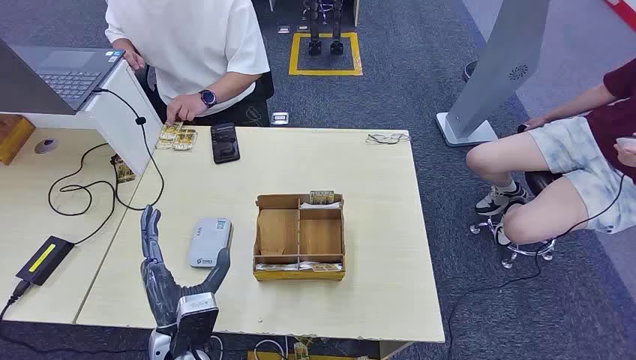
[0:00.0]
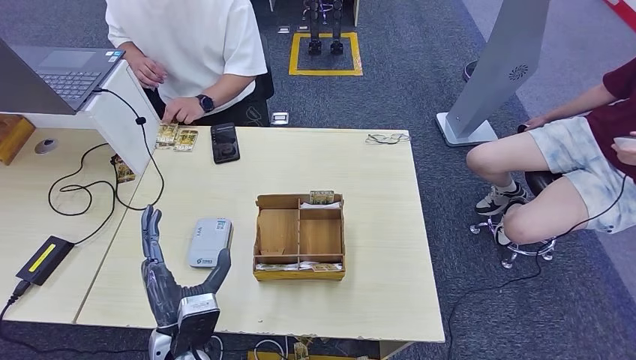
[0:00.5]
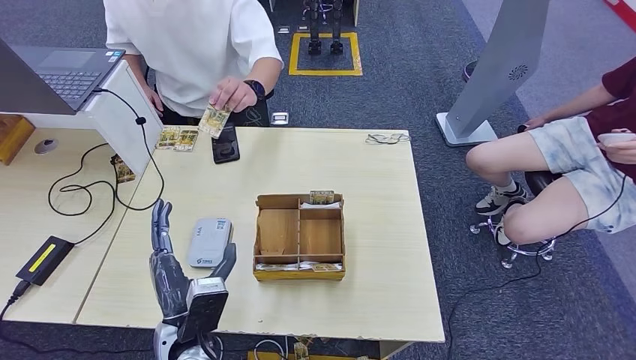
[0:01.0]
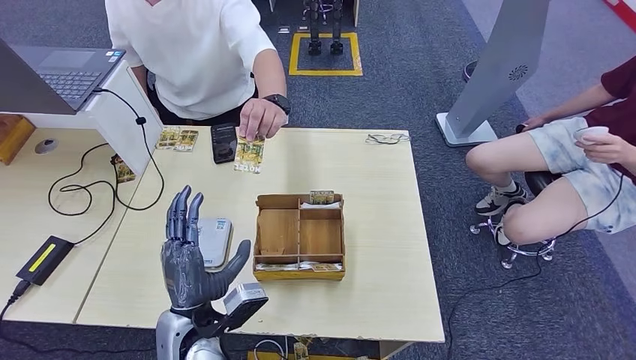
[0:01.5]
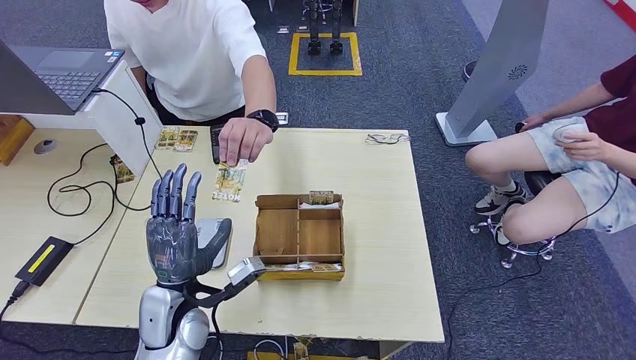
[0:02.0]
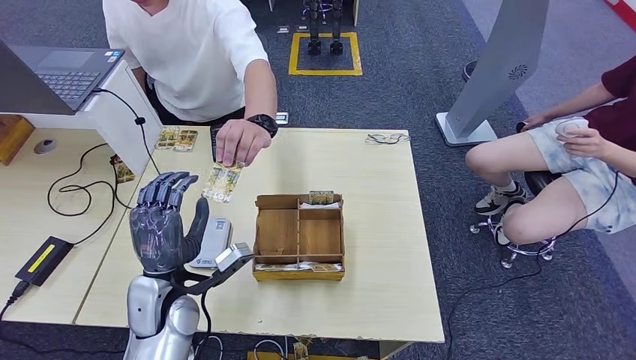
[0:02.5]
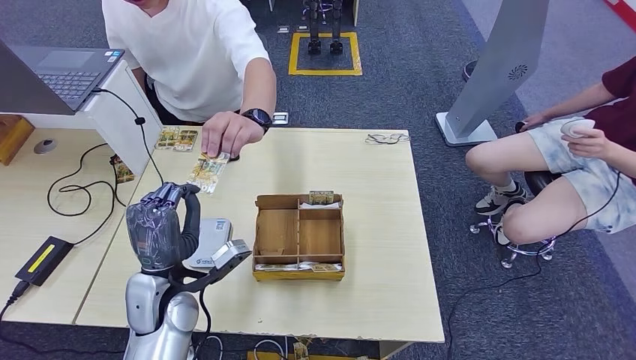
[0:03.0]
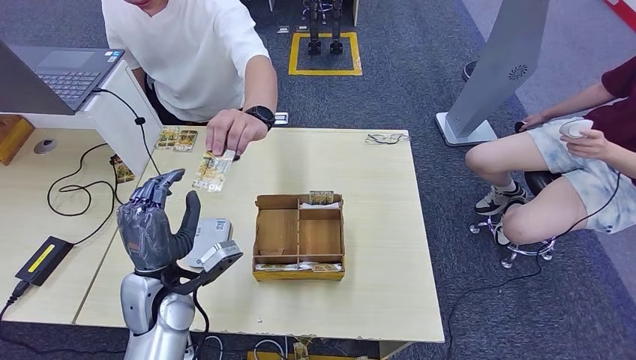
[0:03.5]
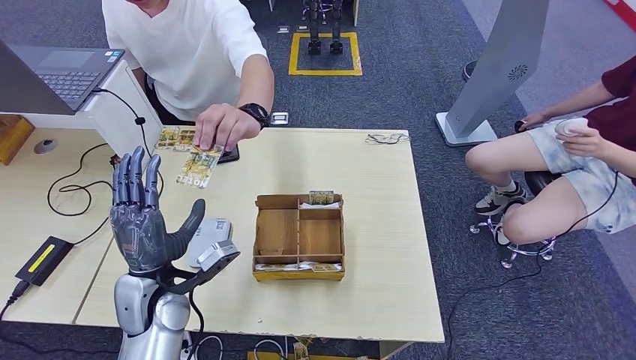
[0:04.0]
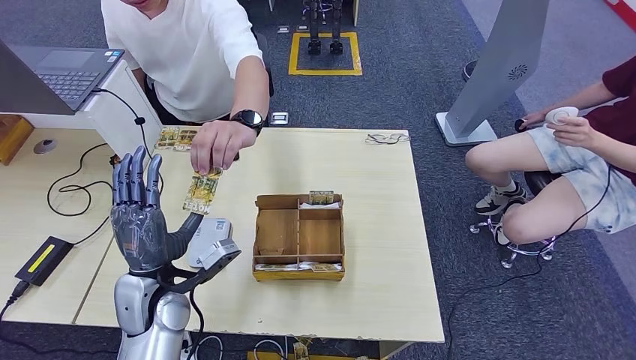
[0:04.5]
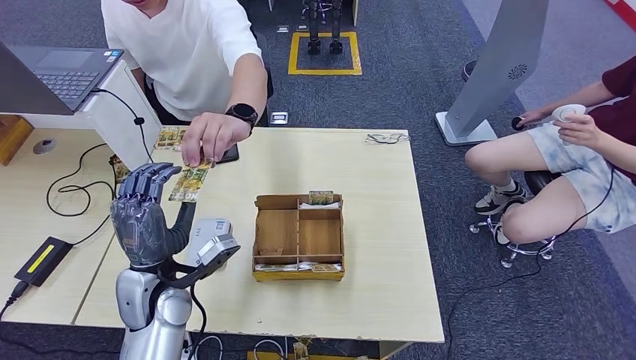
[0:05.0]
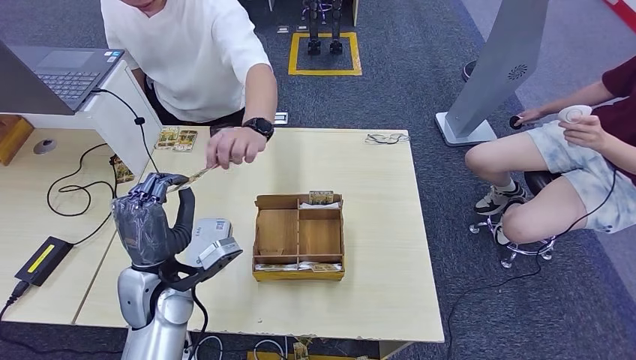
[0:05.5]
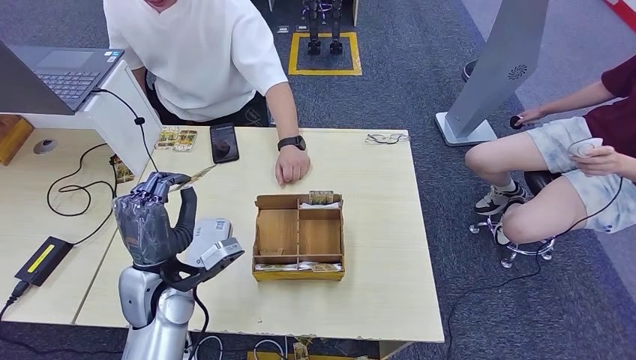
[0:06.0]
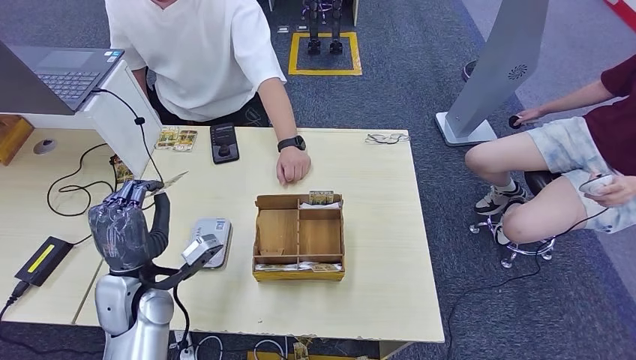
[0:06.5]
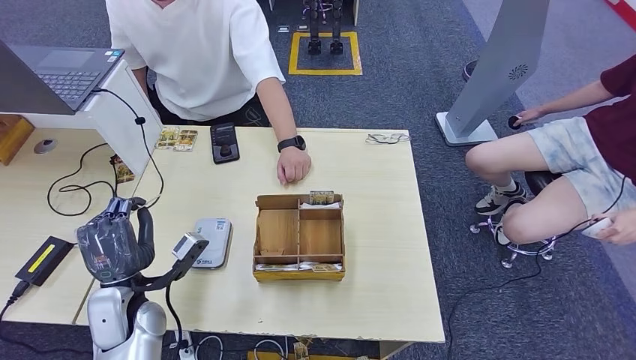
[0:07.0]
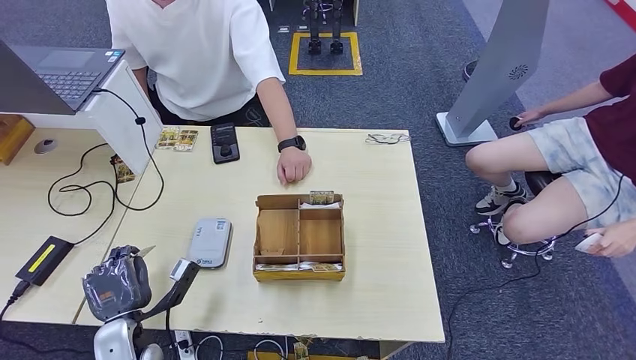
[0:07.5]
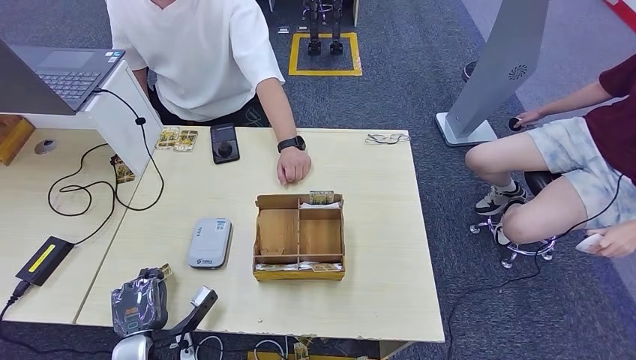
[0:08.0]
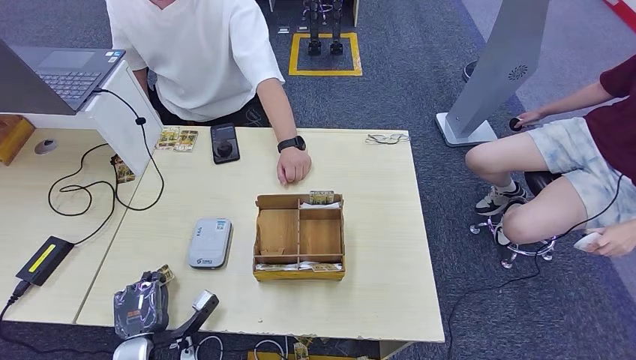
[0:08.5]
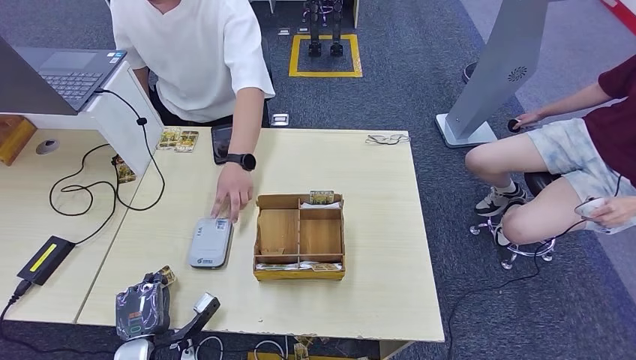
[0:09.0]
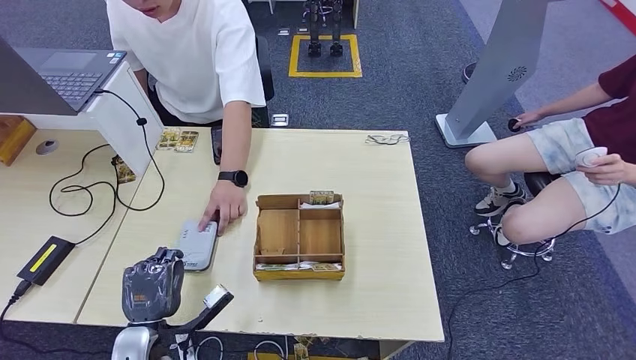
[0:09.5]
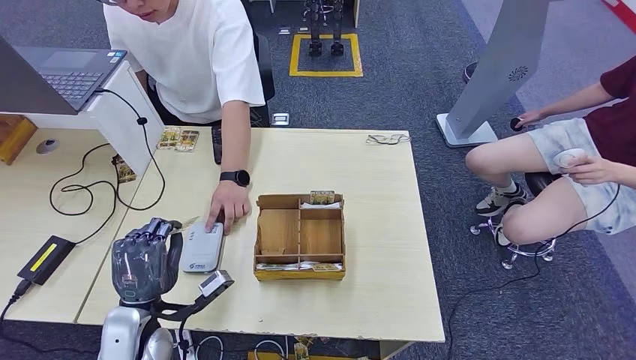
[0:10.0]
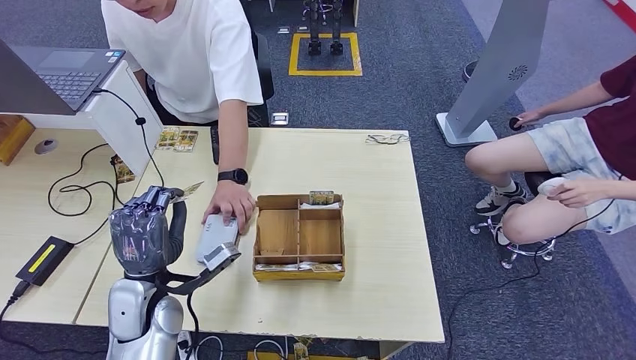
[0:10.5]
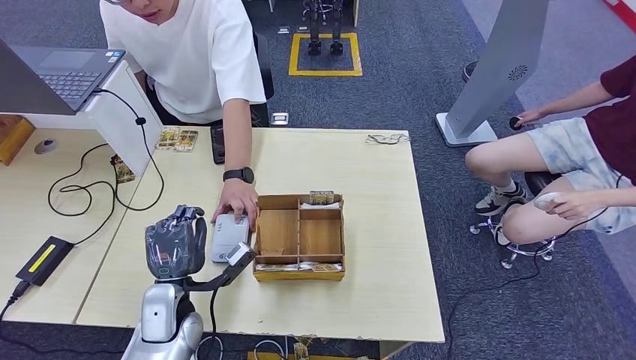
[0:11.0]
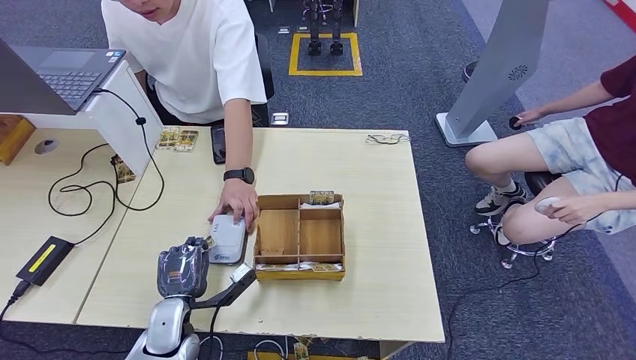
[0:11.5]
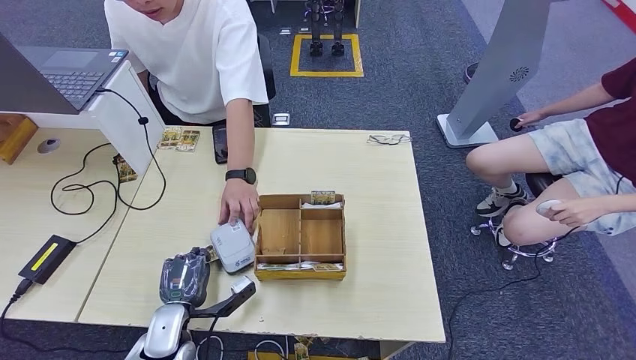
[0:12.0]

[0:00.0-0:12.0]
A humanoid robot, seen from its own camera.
Step, 0:00.0 to 0:05.0: Take the ID card from the person's hand.
Step, 0:06.0 to 0:11.0: Place the ID card on the card reader.
0:02.0 to 0:06.0: There are only small adjustments of the hands.
0:06.0 to 0:08.0: The left hand is displaced downward, backward and to the left by about 20 cm.
0:08.0 to 0:10.0: The left hand travels upward by roughly 10 cm.
0:10.0 to 0:12.0: The left hand goes roughly 10 cm downward.

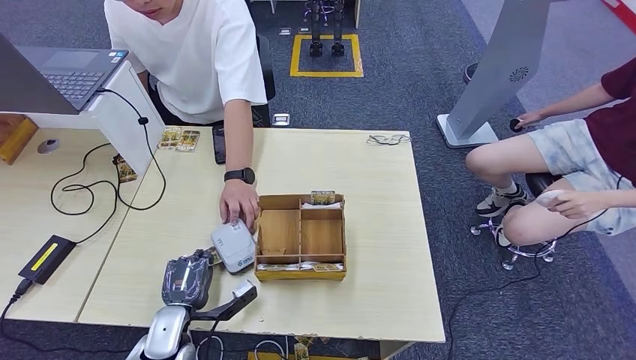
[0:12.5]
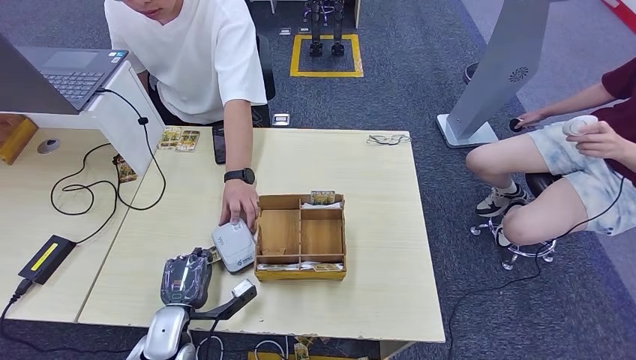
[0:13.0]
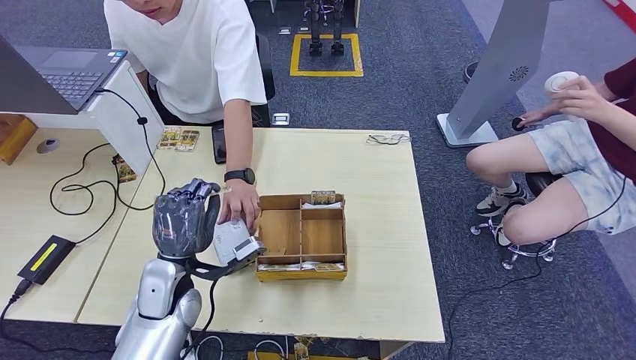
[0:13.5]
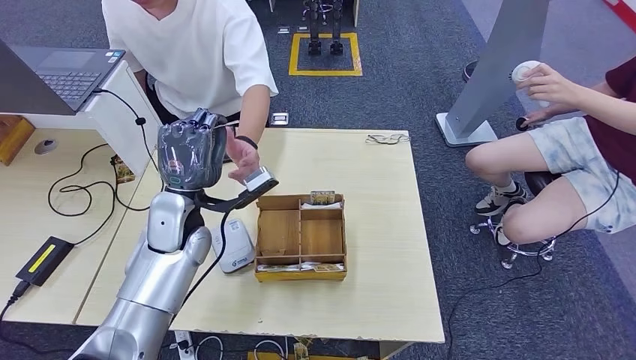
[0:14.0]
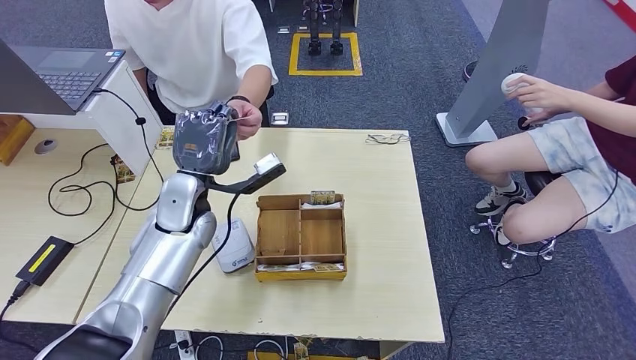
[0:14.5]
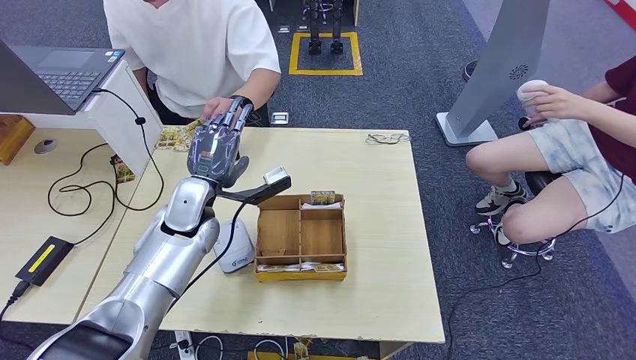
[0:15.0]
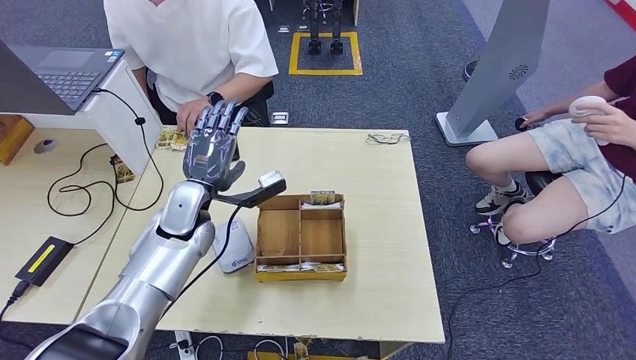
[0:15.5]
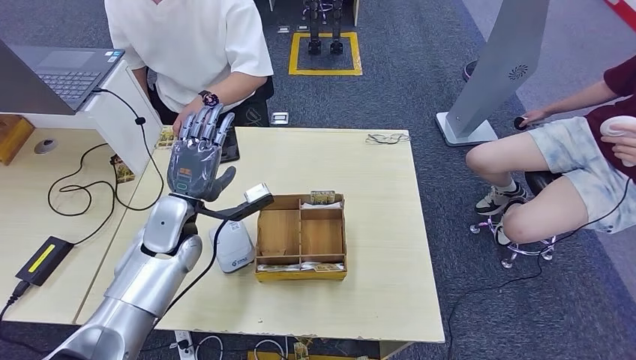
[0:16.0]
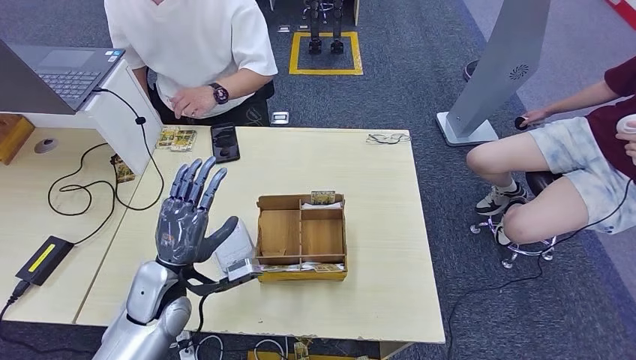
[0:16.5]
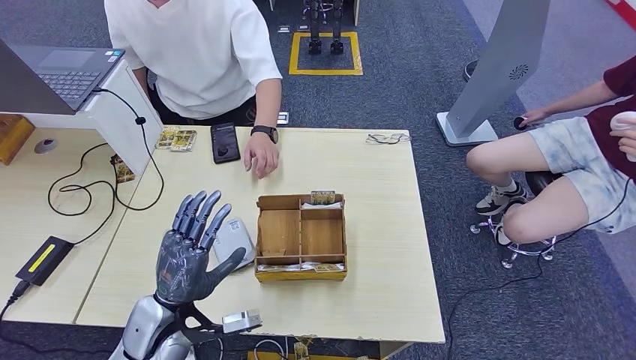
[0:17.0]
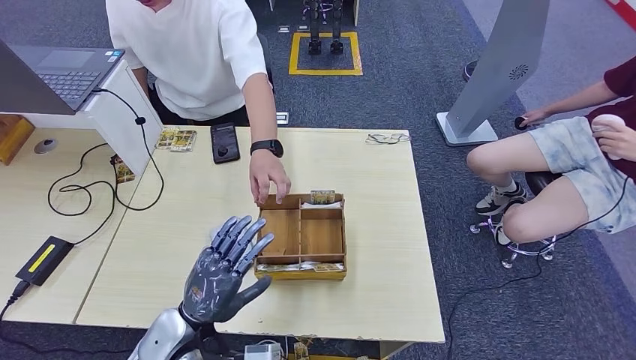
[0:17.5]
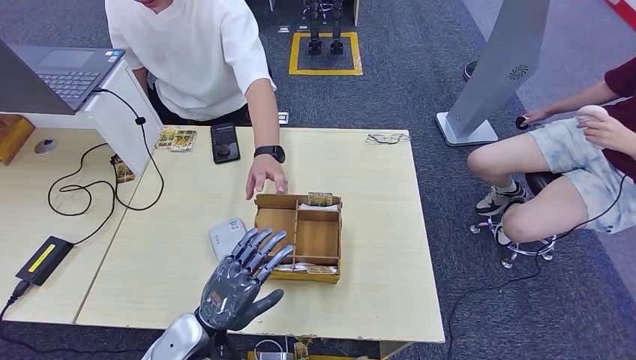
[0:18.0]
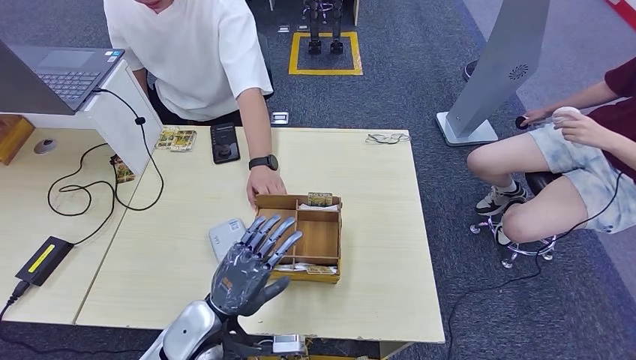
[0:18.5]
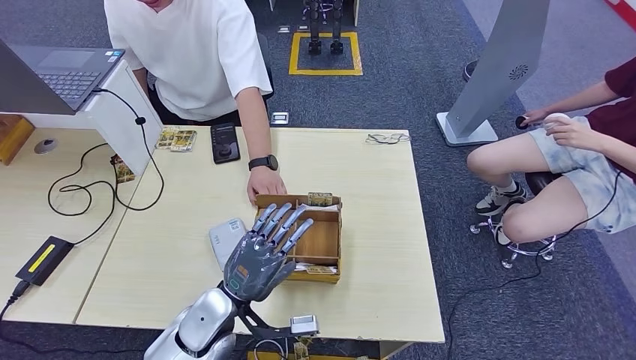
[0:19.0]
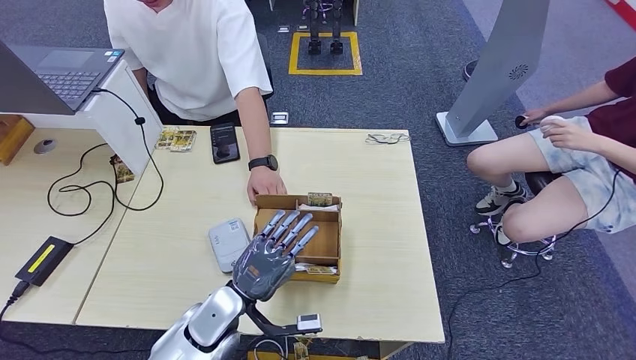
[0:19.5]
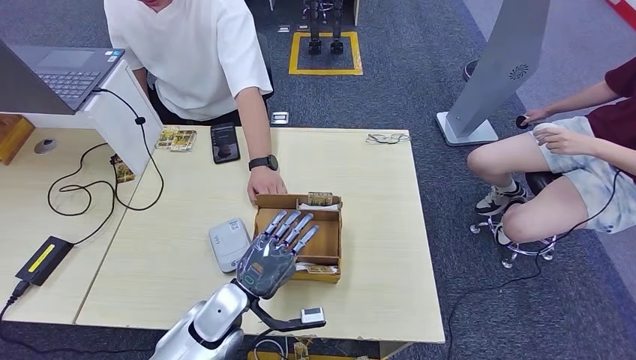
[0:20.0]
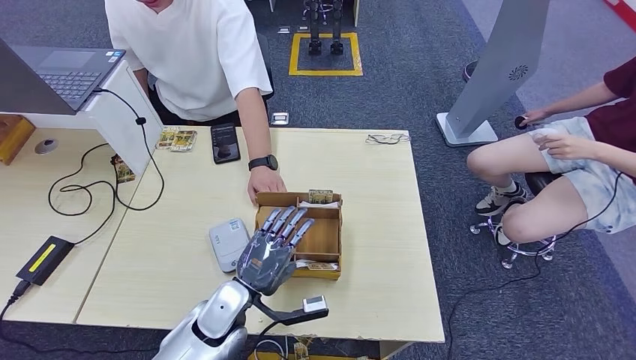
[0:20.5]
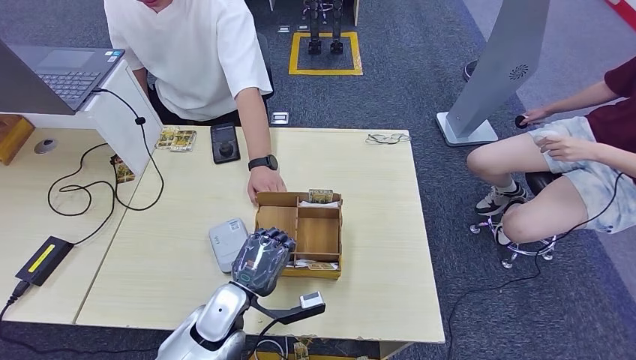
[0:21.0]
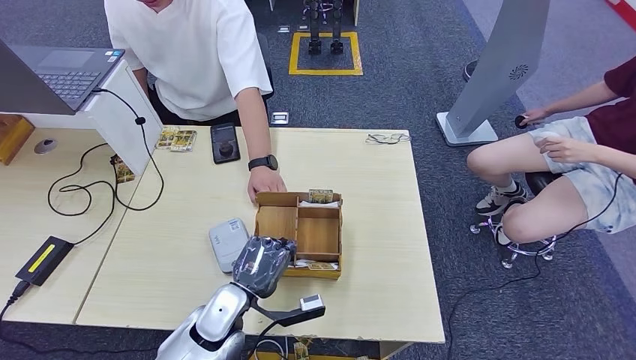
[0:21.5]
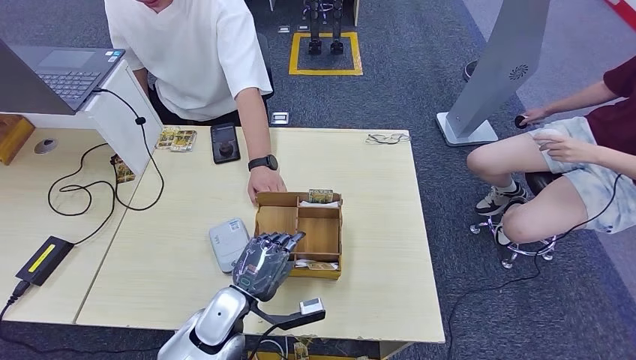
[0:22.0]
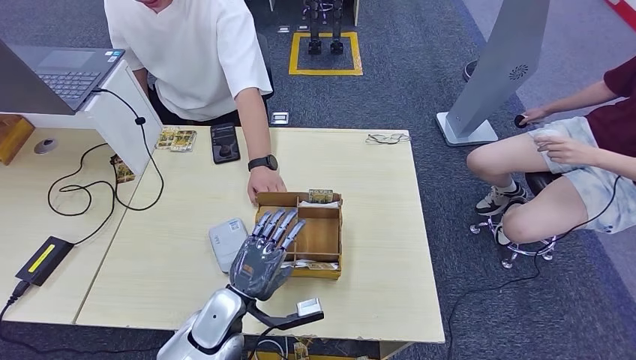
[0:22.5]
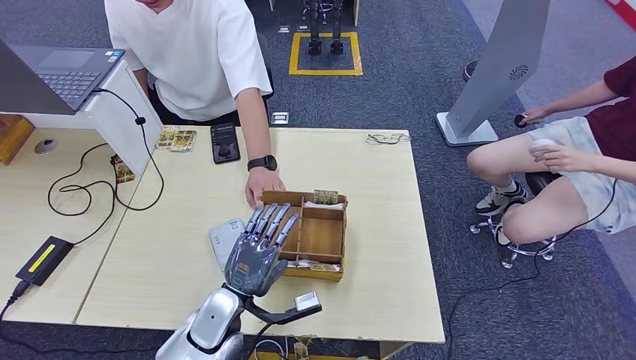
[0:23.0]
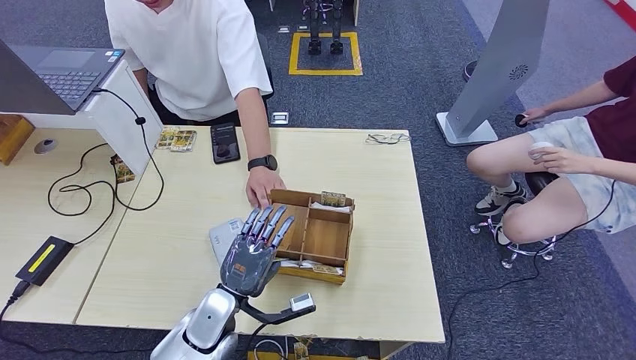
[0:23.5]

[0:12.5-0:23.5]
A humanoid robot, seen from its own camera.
Step, 0:13.5 to 0:16.5: Hand the ID card to the person.
0:12.5 to 0:14.5: The left hand moves upward and forward, approximately 25 cm.
0:14.5 to 0:16.0: The left hand moves roughly 5 cm.
0:16.0 to 0:18.0: The left hand is displaced backward and downward by approximately 20 cm.
0:18.0 to 0:20.0: The left hand shifts roughly 5 cm forward.
0:20.0 to 0:23.5: There are only small adjustments of the hands.
